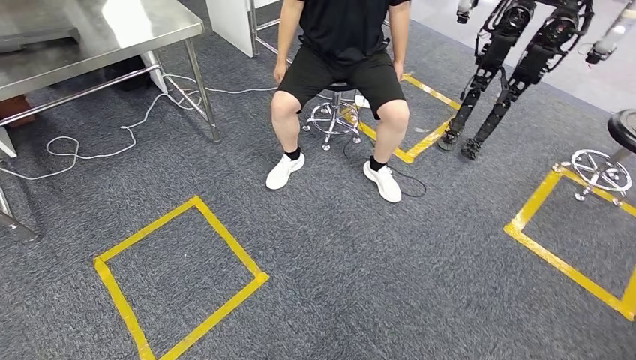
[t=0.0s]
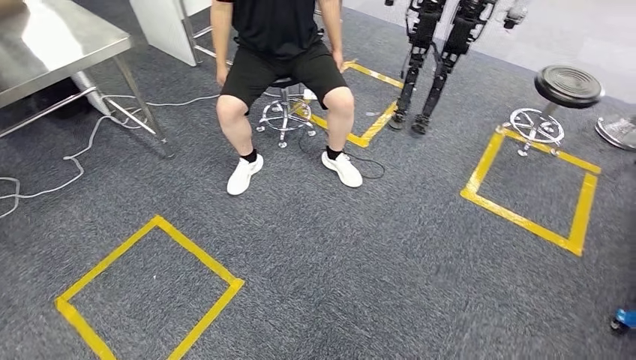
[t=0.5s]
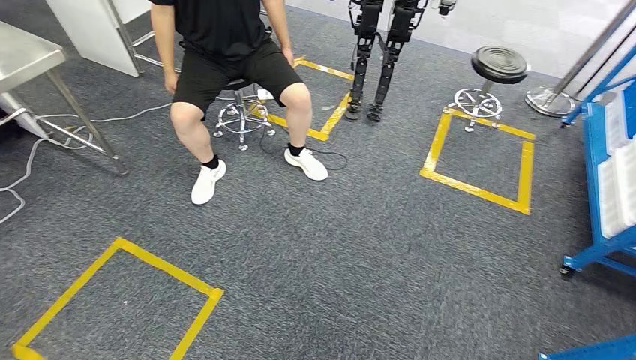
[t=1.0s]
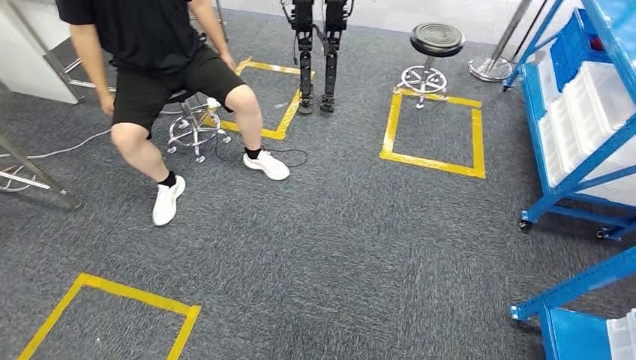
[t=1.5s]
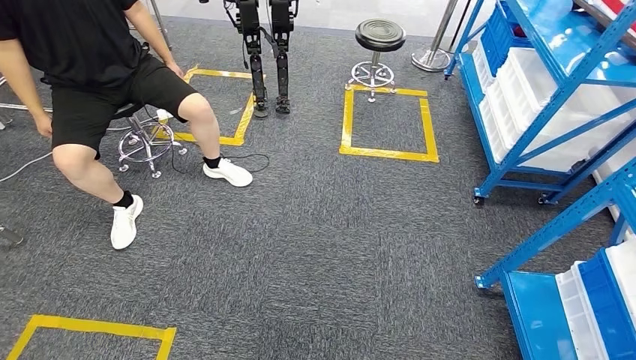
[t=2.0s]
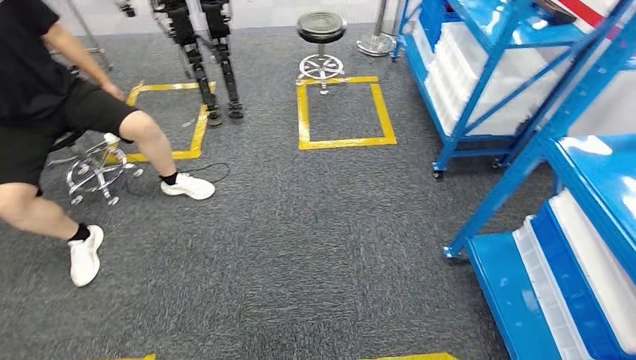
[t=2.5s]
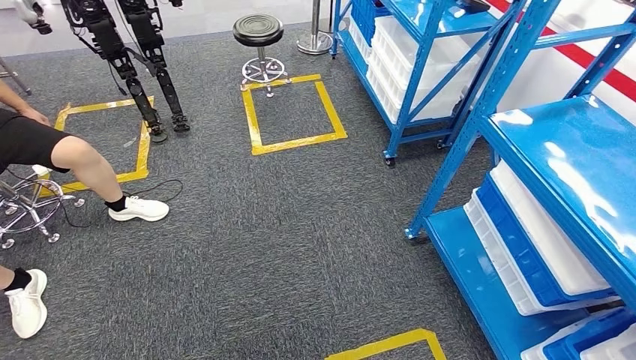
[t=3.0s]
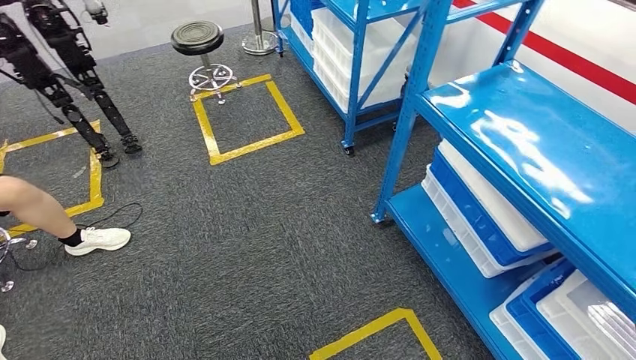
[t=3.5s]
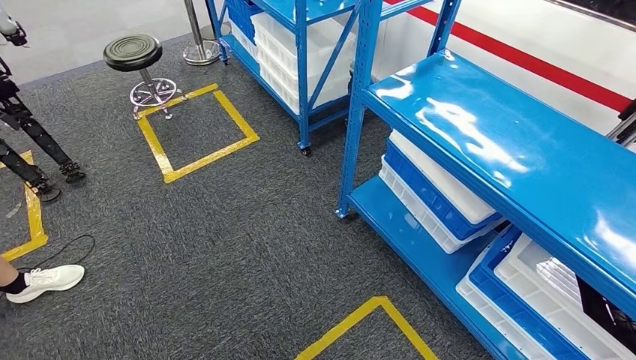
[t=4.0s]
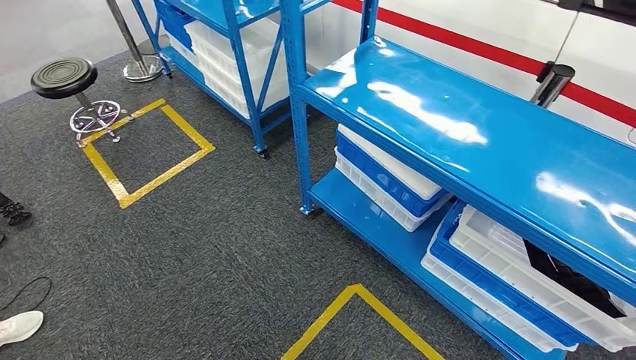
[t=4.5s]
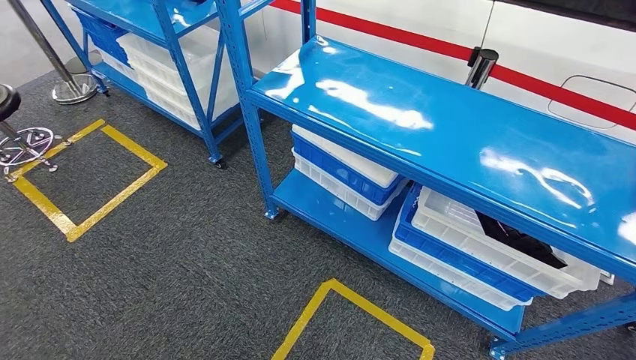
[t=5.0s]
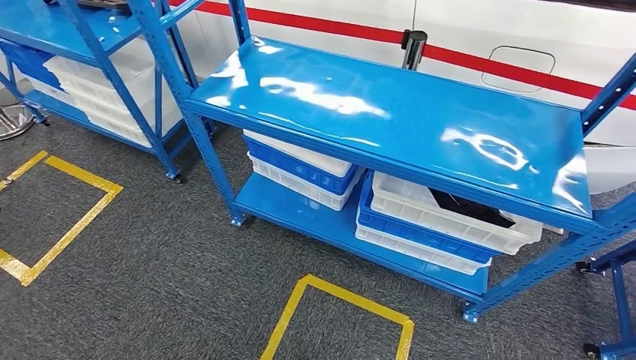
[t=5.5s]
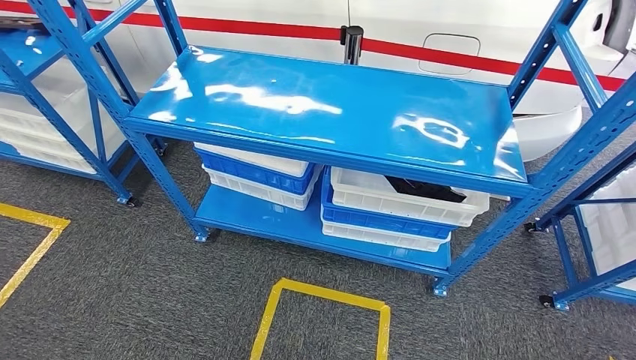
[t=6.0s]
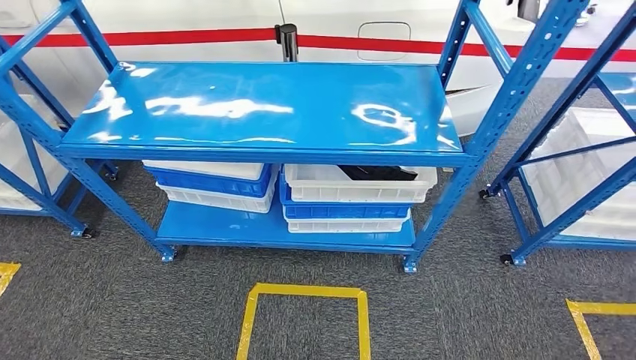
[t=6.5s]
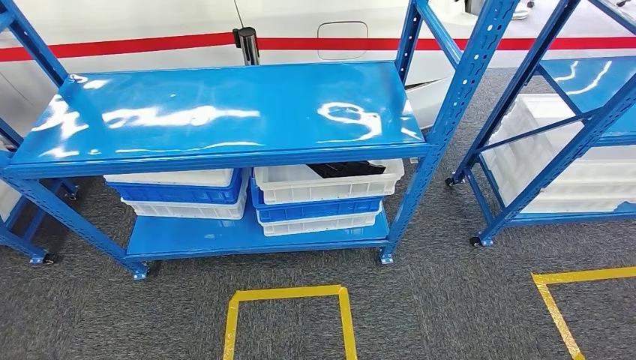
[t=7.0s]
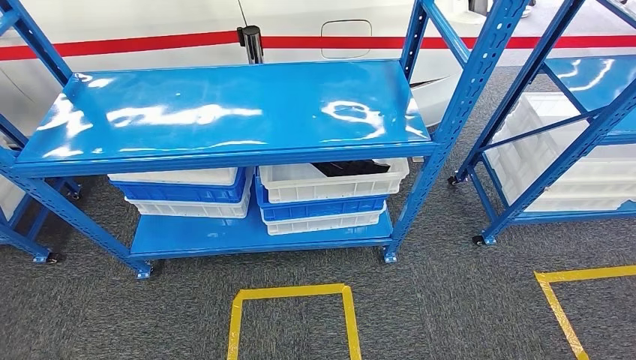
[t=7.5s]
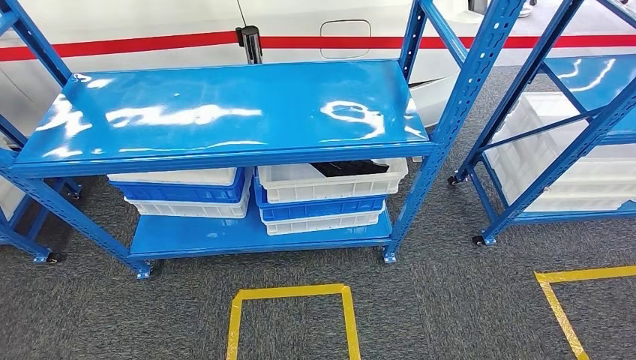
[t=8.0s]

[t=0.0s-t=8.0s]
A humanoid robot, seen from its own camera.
Step, t=0.0s to t=8.0s: Return to the initial position at the shelf.

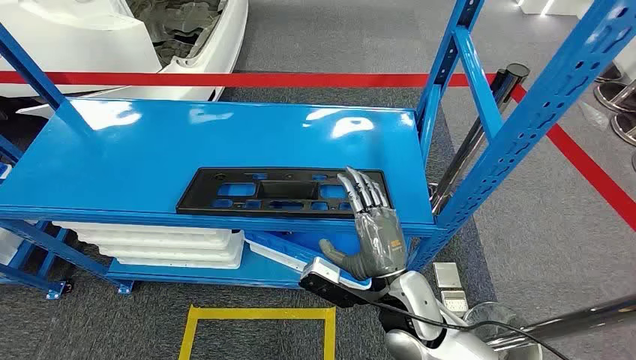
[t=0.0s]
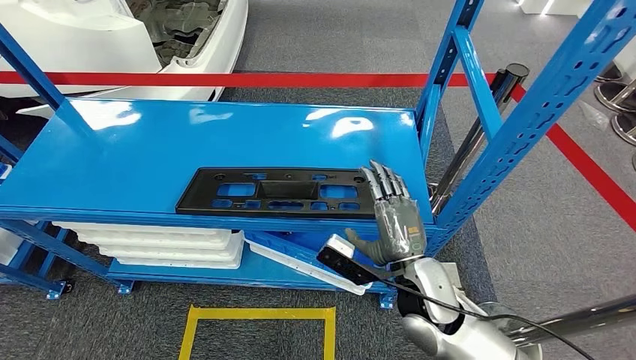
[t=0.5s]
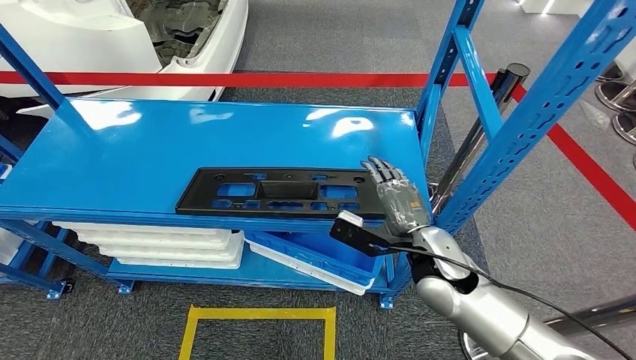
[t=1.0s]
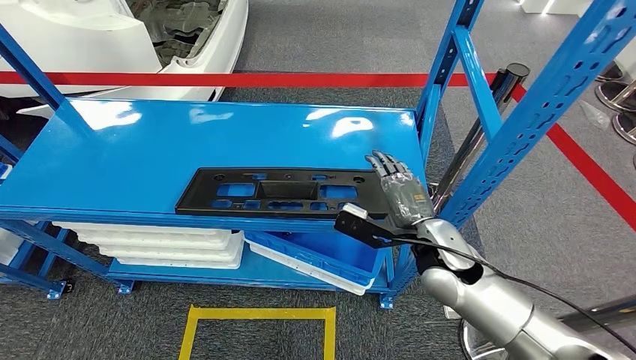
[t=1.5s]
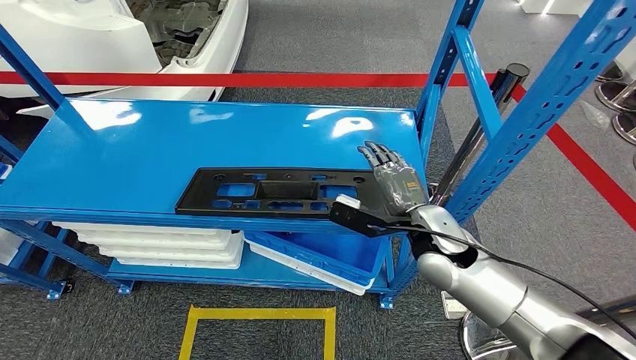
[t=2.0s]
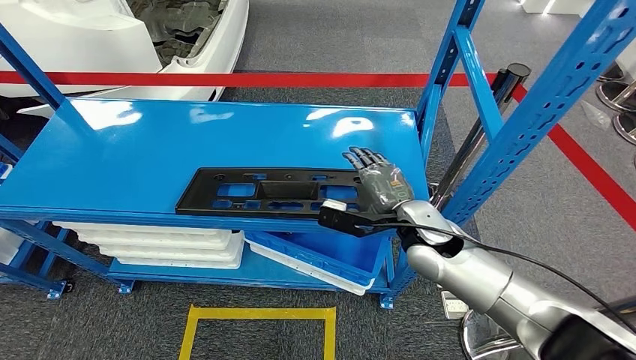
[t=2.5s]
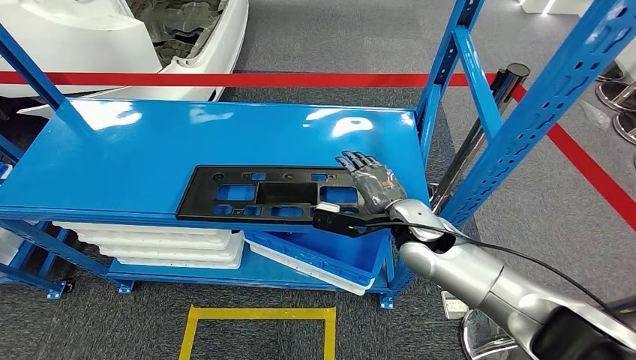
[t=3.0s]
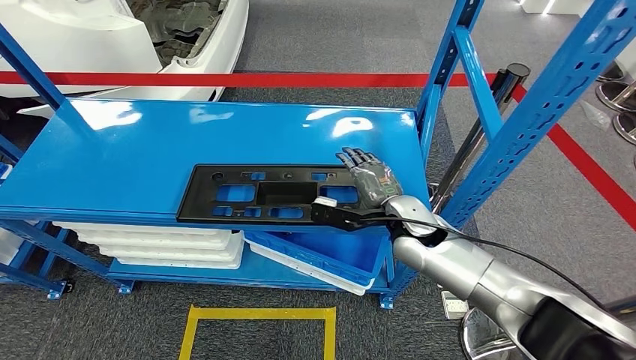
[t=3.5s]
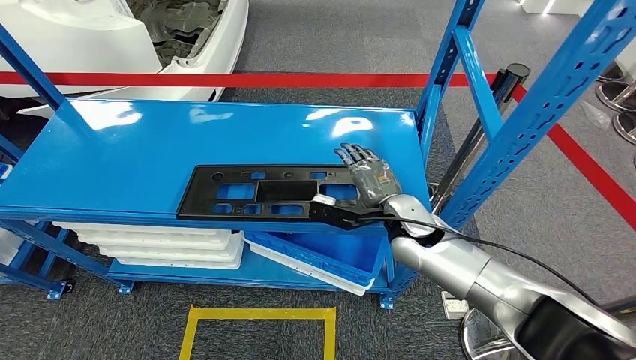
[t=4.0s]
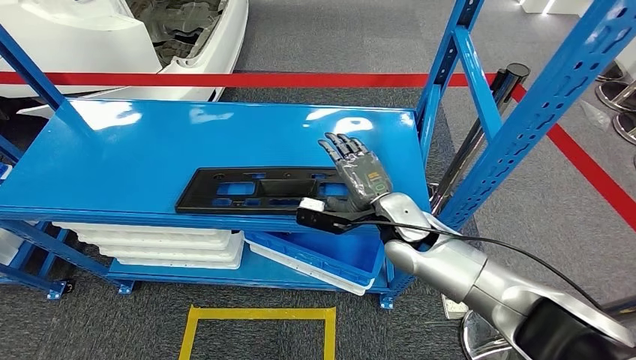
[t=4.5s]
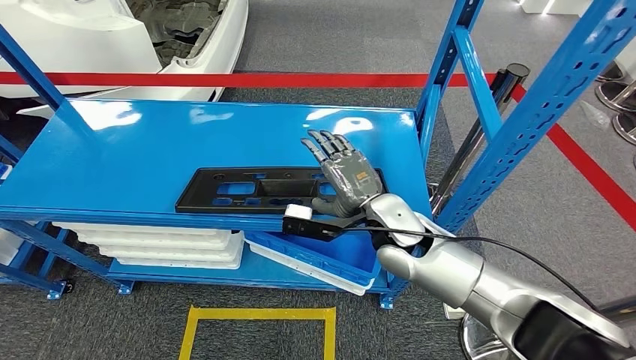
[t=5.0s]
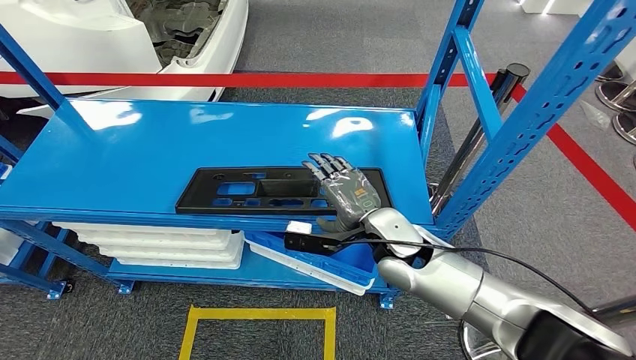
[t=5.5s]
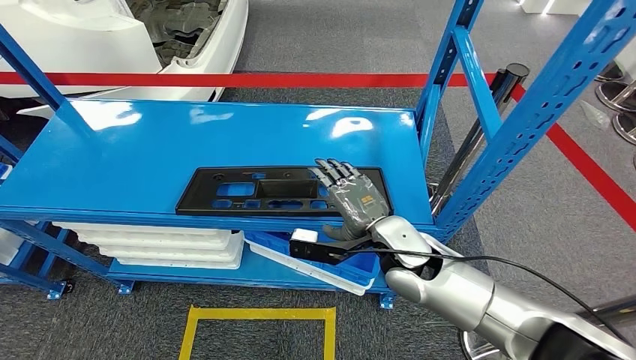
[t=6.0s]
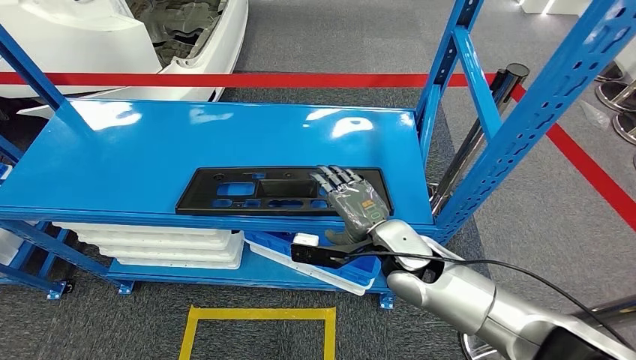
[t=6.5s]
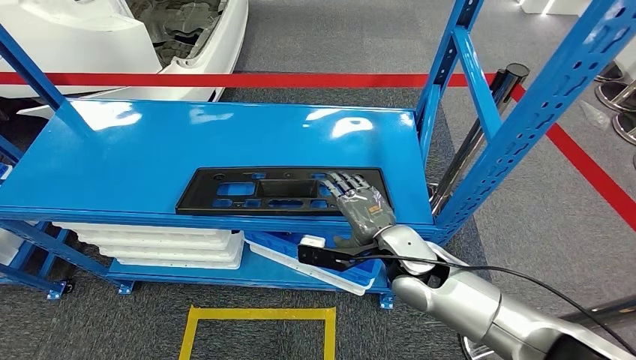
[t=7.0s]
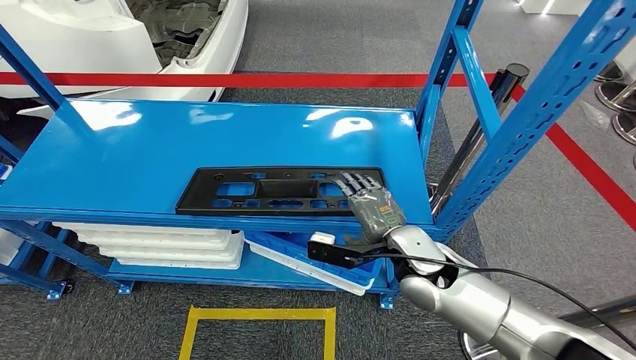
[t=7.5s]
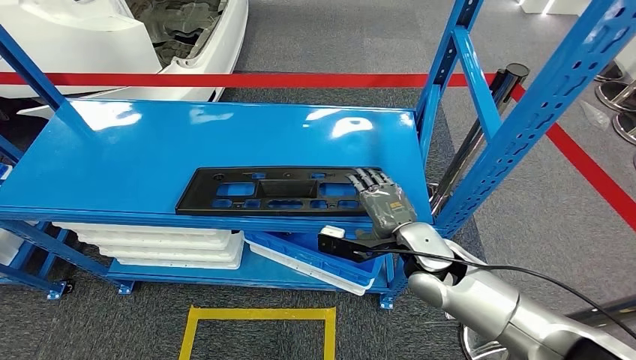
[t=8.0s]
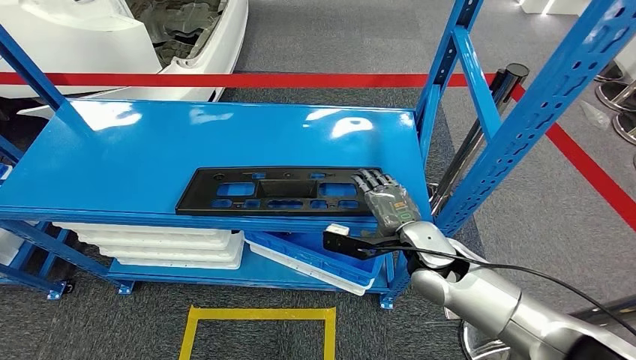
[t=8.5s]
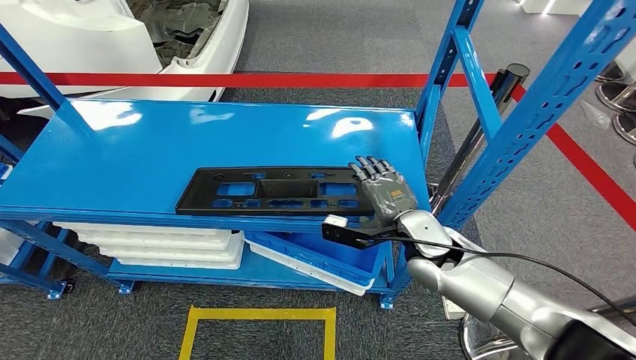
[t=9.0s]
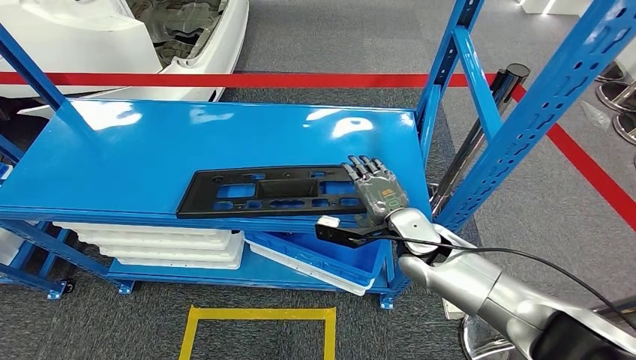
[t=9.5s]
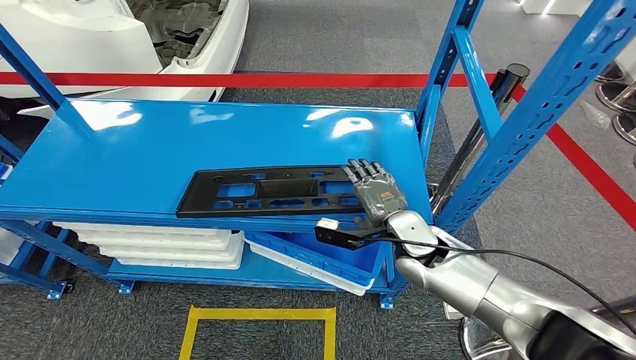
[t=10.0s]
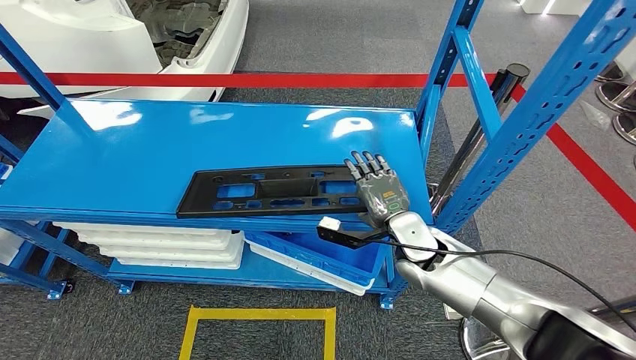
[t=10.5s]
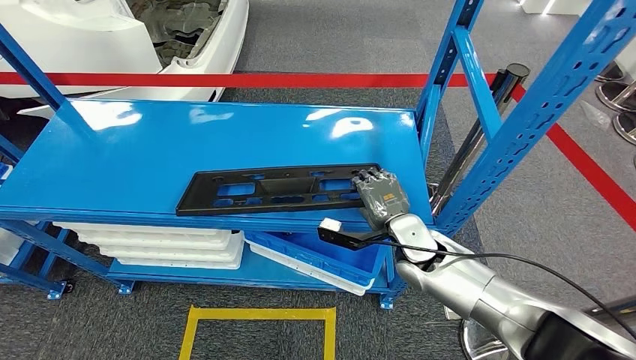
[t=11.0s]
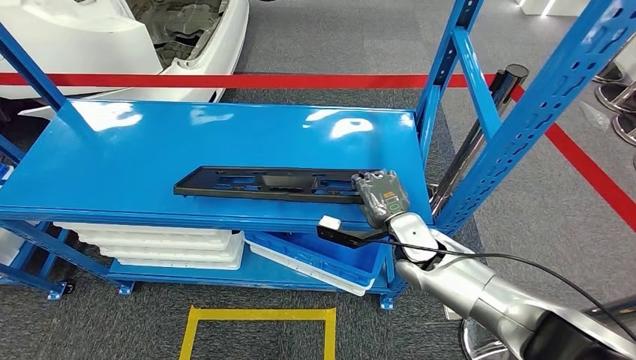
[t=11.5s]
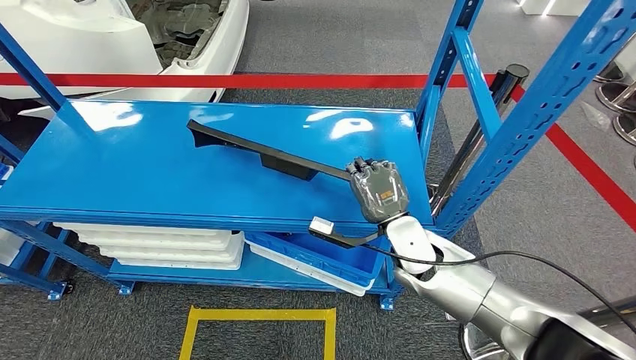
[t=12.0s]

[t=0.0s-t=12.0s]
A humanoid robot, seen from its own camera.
t=2.0s to t=4.0s: The right hand changes place by some 5 cm.
t=4.0s to t=6.0s: The right hand heads backward, covering roughly 5 cm.
t=6.0s to t=10.0s: The hands move only a little.
